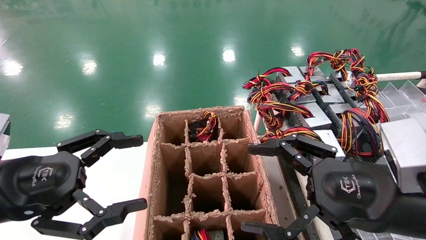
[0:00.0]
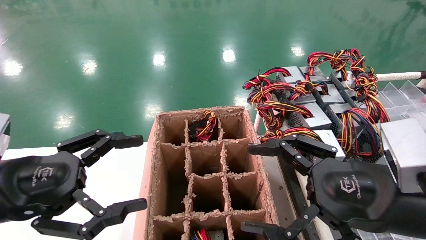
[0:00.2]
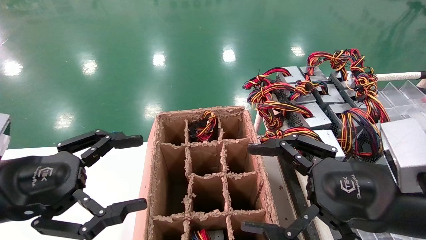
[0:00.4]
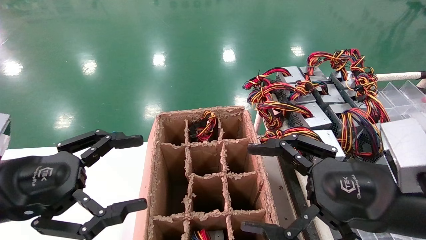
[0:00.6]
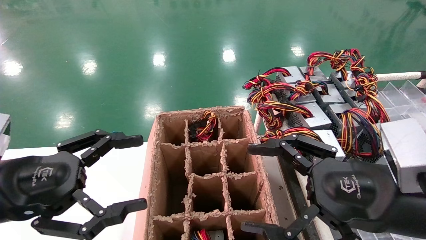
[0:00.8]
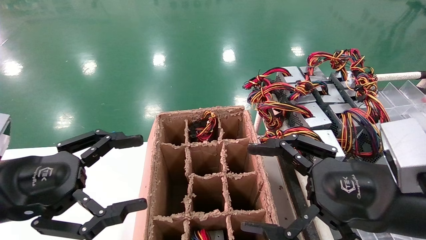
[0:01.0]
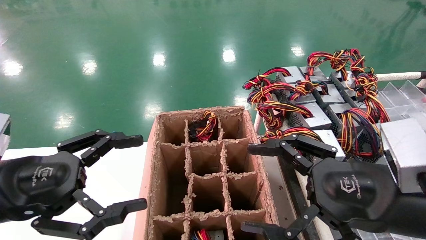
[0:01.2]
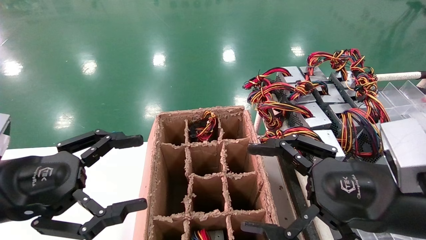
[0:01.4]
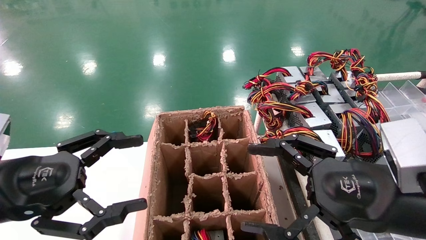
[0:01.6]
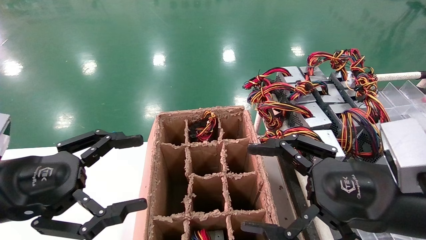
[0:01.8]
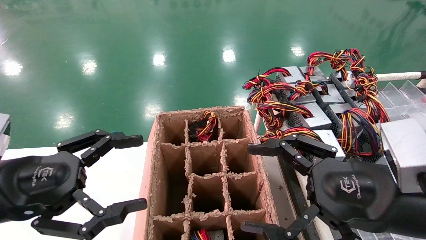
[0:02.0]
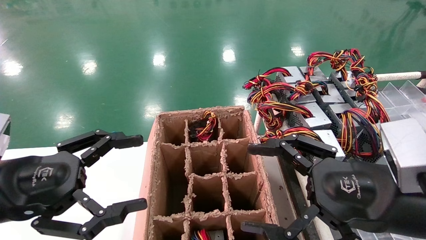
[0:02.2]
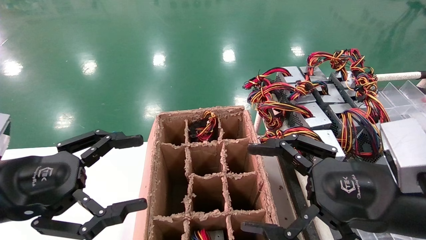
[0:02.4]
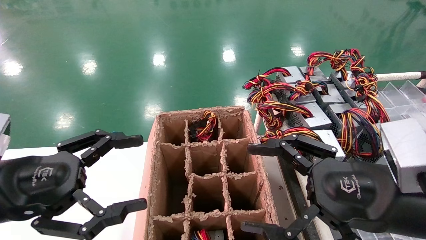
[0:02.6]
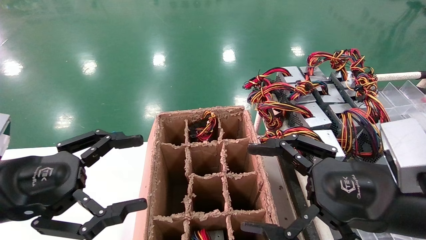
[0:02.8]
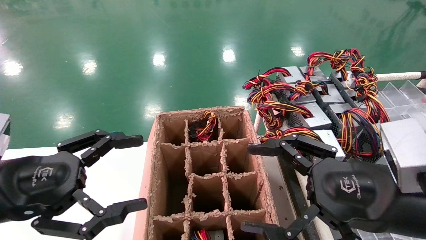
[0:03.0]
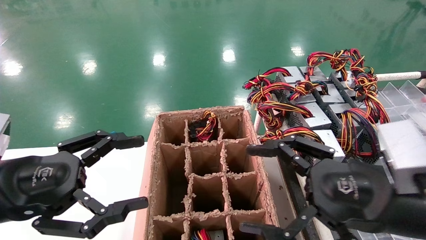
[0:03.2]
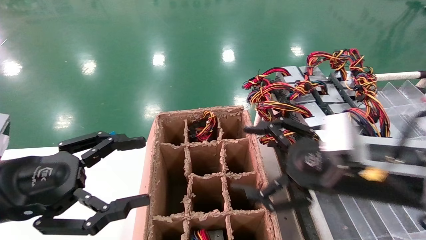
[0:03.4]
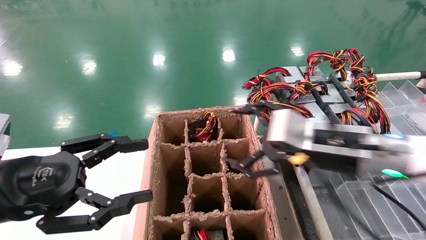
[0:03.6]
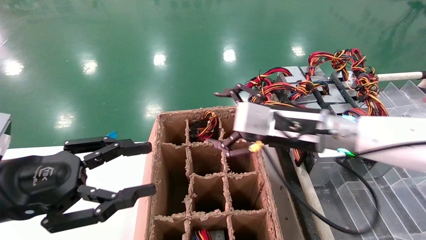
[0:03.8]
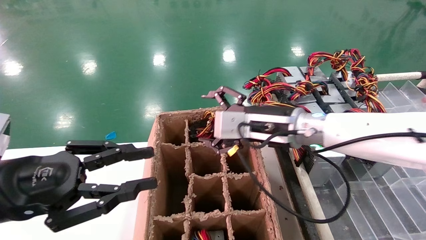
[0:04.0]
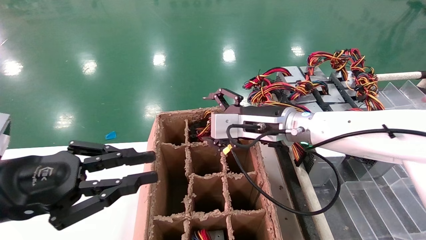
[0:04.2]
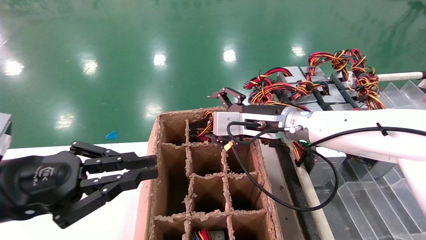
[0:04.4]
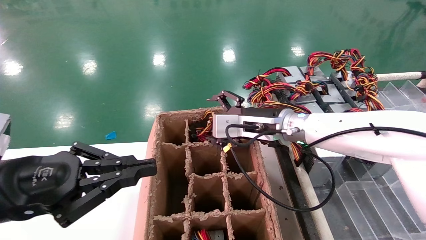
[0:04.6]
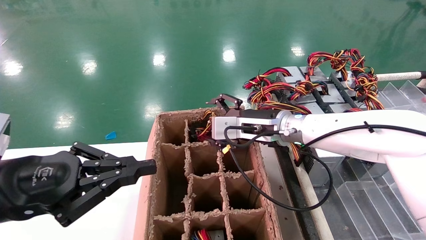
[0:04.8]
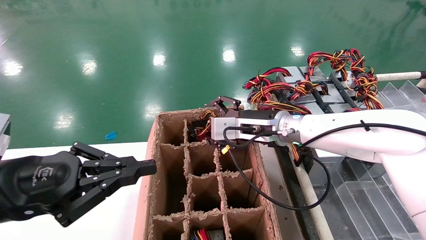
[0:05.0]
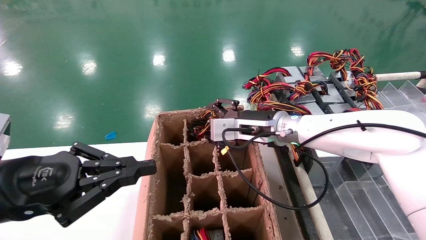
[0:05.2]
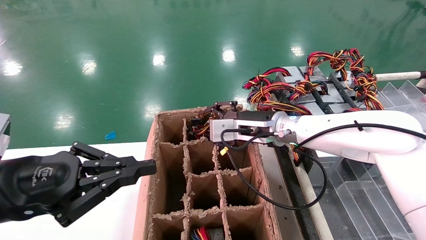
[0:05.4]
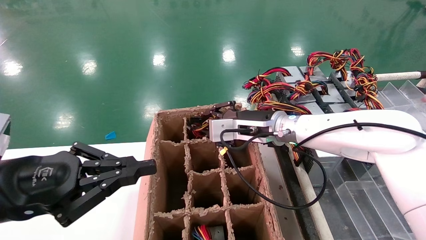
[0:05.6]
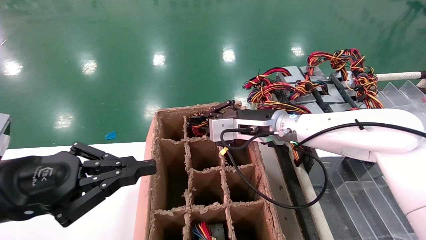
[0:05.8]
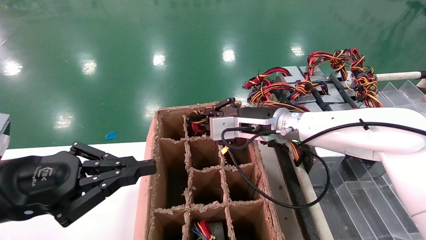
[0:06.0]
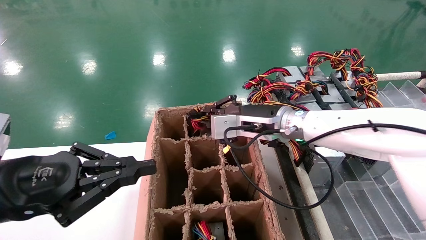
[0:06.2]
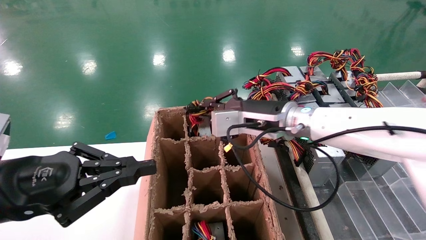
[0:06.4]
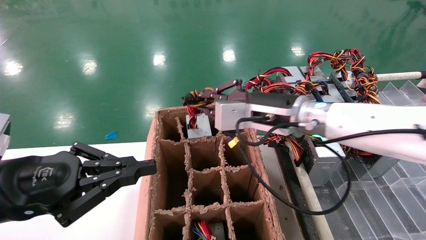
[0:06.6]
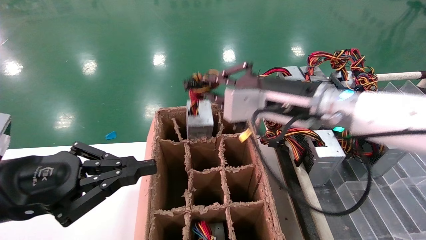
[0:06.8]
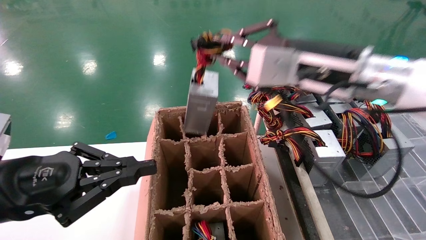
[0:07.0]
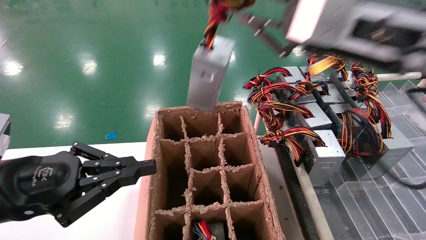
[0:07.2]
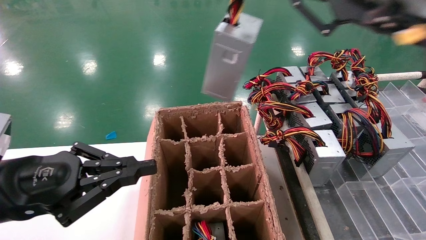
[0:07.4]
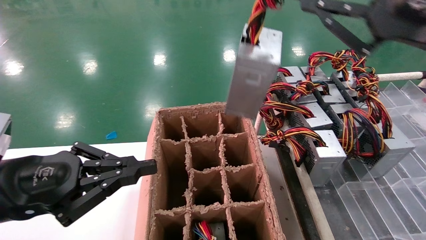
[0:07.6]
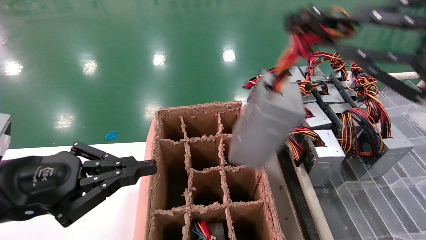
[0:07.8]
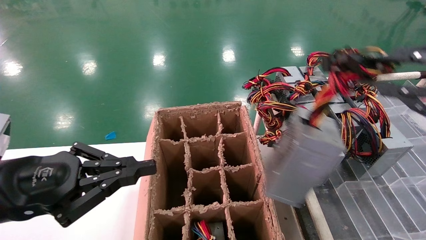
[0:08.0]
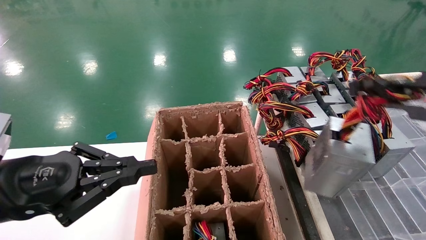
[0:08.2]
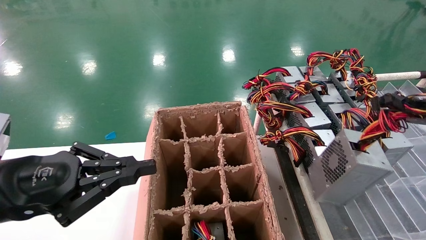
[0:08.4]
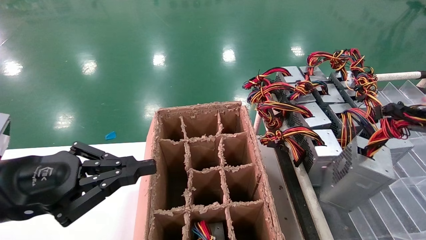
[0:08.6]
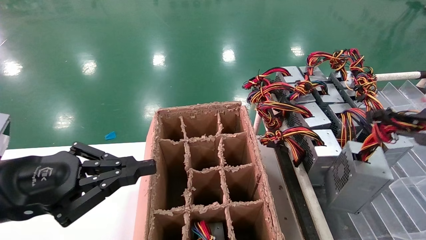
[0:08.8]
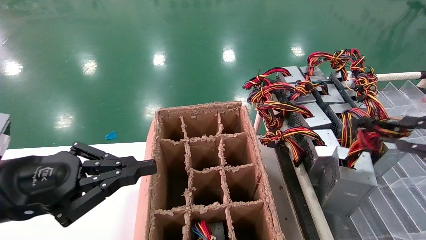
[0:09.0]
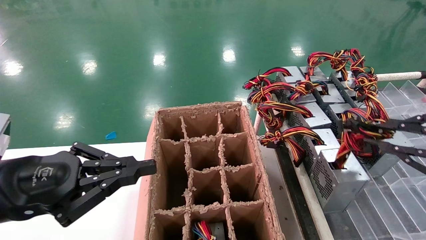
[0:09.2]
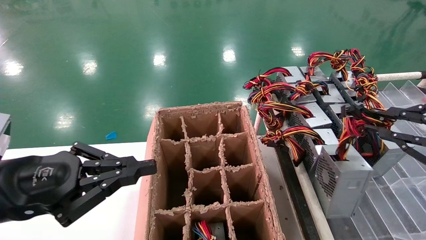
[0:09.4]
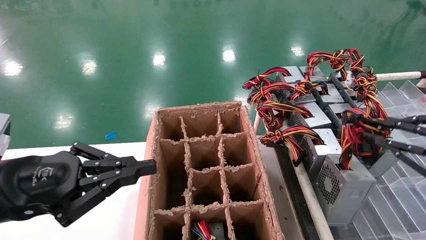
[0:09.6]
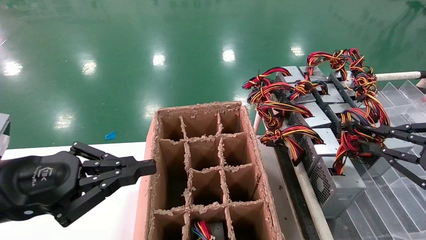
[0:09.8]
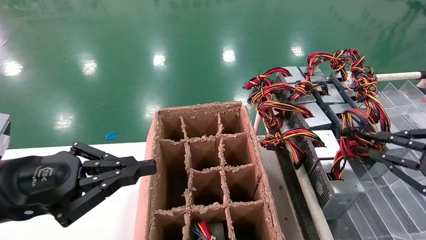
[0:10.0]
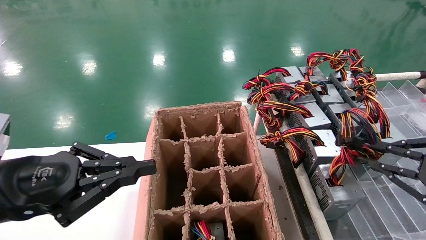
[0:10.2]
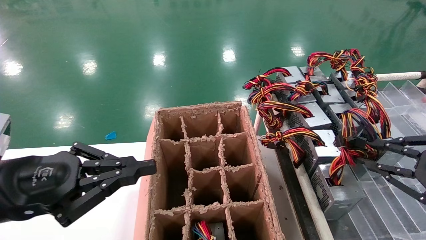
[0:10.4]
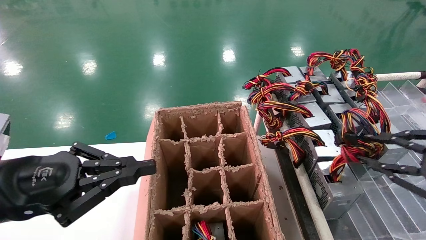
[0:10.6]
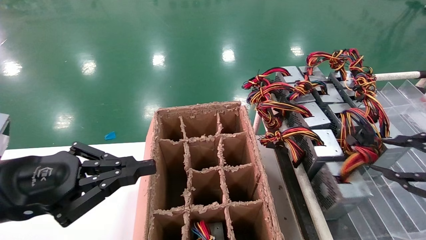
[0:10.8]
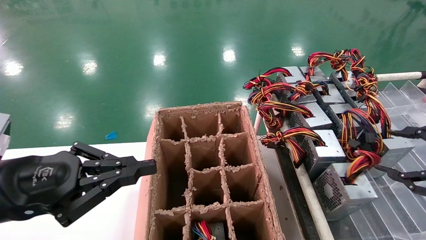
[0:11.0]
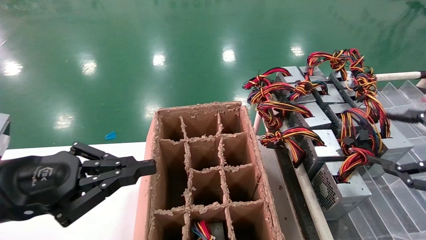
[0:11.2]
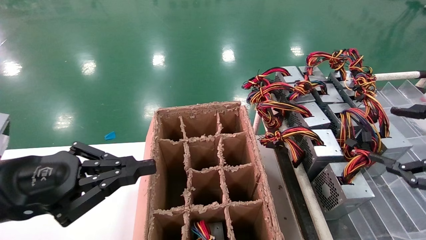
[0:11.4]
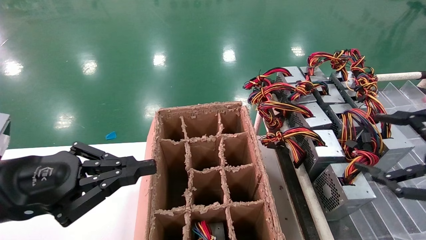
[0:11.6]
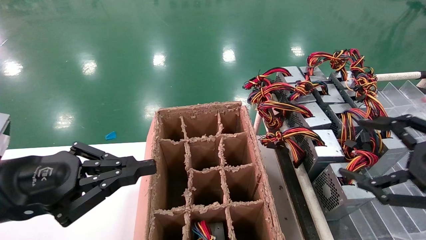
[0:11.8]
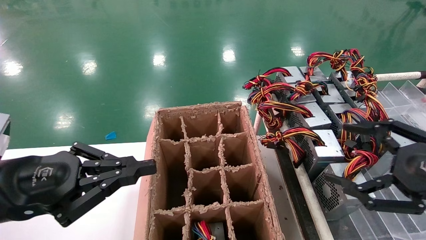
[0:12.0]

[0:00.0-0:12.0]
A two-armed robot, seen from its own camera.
Step, 0:03.6 to 0:06.2: Grab the main unit power supply from the containment box.
Step, 0:06.4 to 0:11.0: Place the main unit power supply in the designated area.
0:00.0 to 0:03.0: Both grippers stay about where they are.
0:03.0 to 0:04.4: The left gripper closes its fingers. The right gripper goes some 25 cm forward and to the left.
0:04.4 to 0:06.0: The right gripper closes its fingers.
0:06.0 to 0:07.6: The right gripper is displaced backward, to the right and upward by some 30 cm.
0:07.6 to 0:09.0: The right gripper is displaced to the right and downward by roughly 15 cm.
0:09.0 to 0:10.4: The right gripper shifts roughly 5 cm downward.
0:10.4 to 0:12.0: The right gripper is displaced to the left by some 5 cm, and opens its fingers.

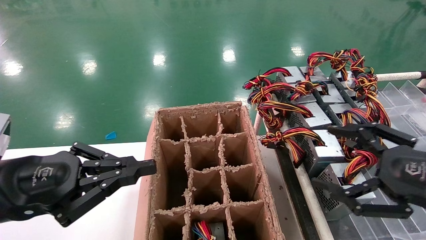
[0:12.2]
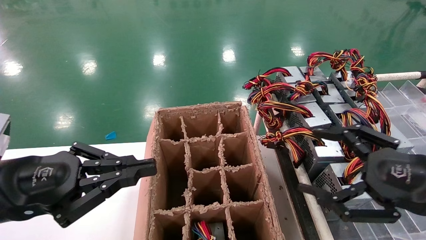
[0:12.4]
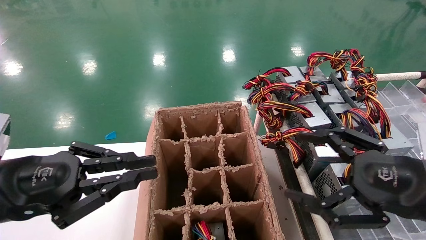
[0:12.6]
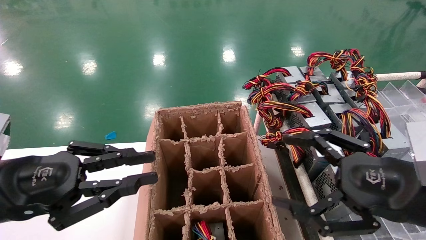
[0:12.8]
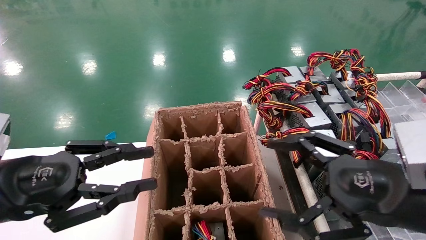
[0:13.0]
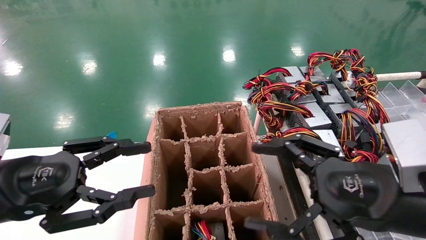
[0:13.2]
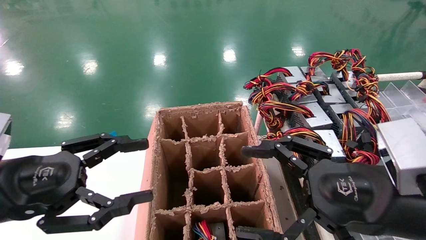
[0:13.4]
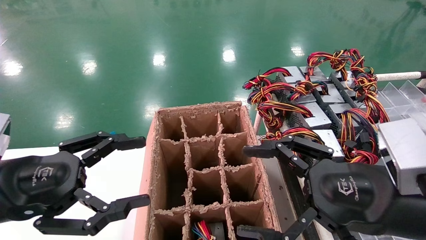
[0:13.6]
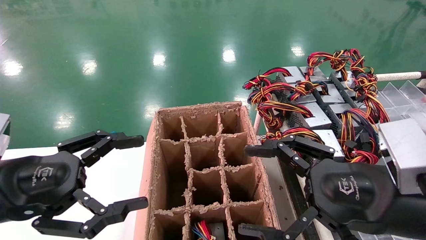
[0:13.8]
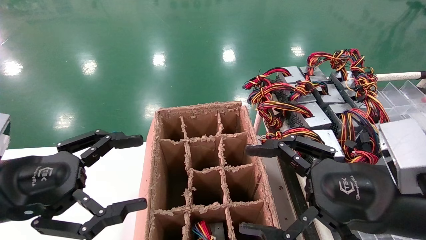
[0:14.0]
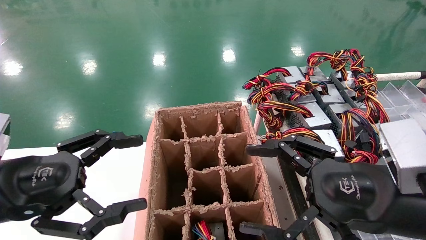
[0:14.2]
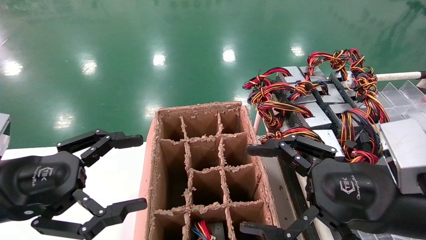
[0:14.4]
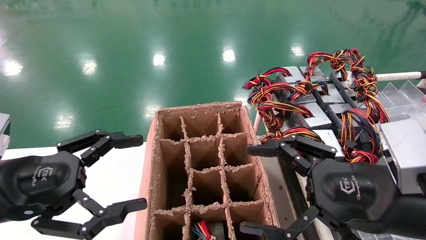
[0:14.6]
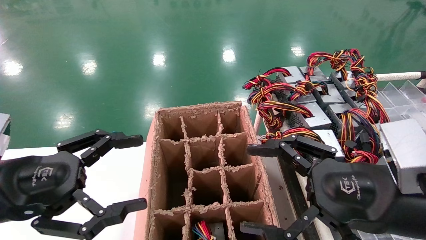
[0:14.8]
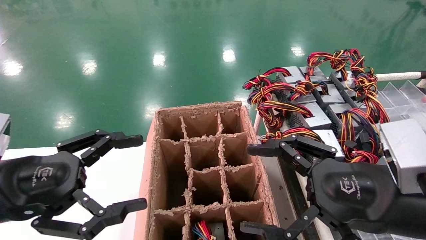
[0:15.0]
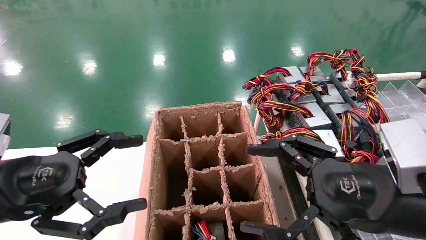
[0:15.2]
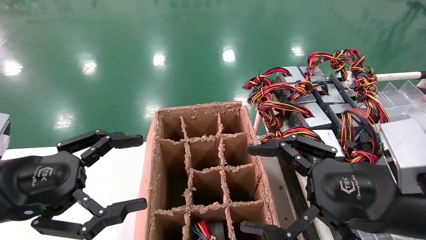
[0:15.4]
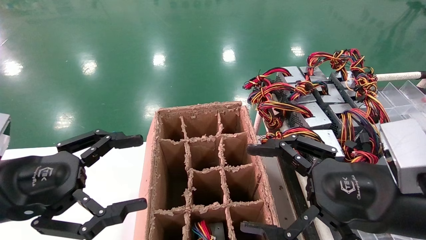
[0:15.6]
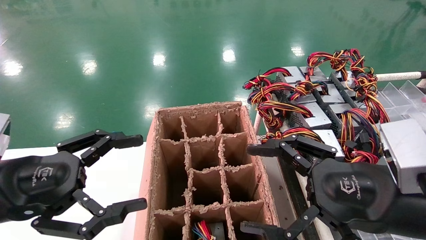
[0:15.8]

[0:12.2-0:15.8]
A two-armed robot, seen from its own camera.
0:12.2 to 0:14.0: The right gripper goes some 10 cm to the left; the left gripper opens its fingers.
0:14.0 to 0:15.8: Both grippers stay about where they are.
